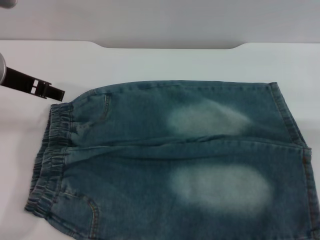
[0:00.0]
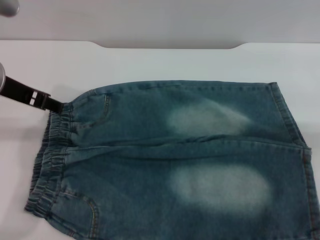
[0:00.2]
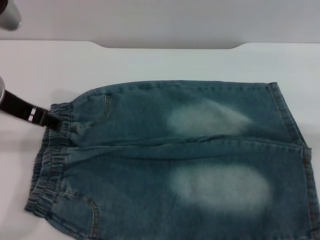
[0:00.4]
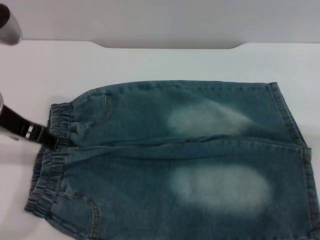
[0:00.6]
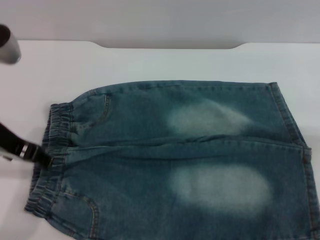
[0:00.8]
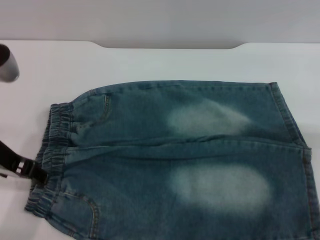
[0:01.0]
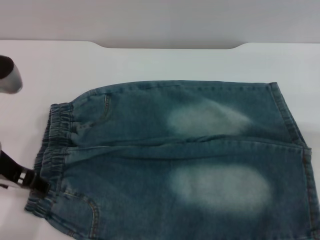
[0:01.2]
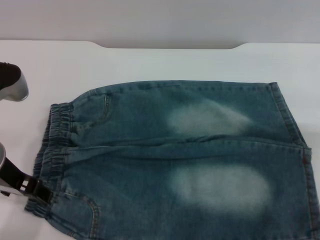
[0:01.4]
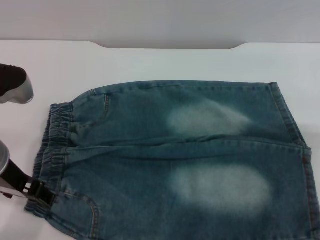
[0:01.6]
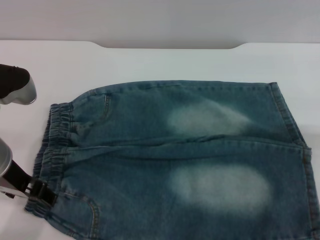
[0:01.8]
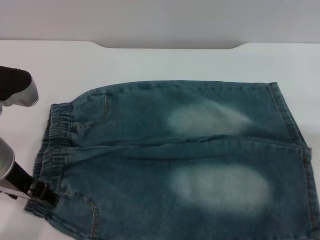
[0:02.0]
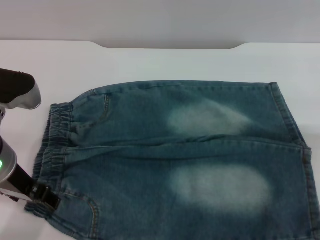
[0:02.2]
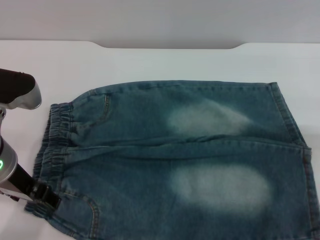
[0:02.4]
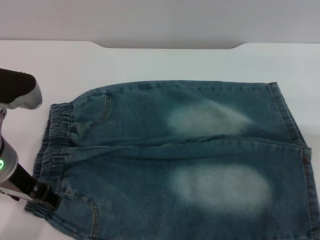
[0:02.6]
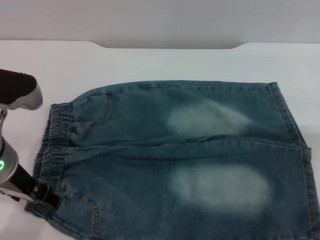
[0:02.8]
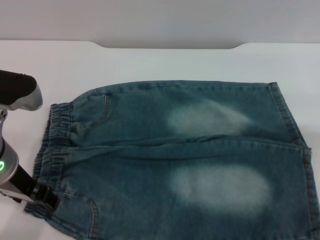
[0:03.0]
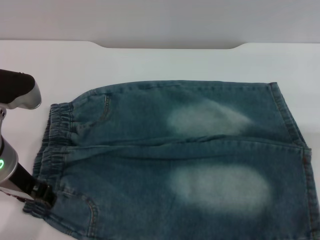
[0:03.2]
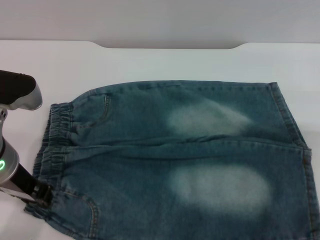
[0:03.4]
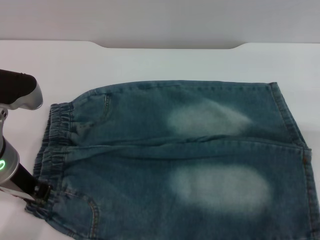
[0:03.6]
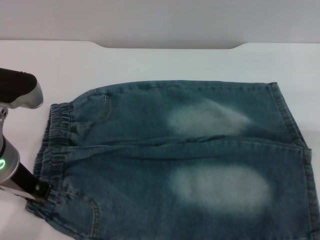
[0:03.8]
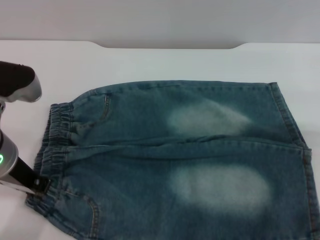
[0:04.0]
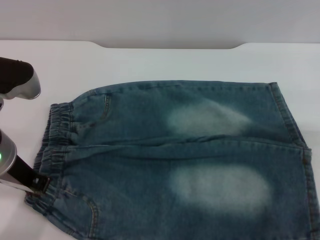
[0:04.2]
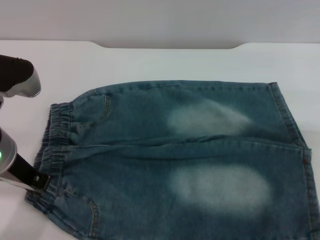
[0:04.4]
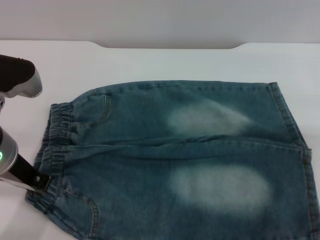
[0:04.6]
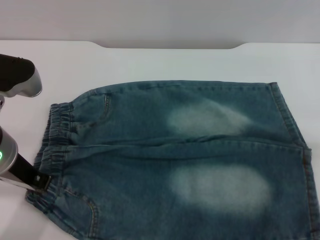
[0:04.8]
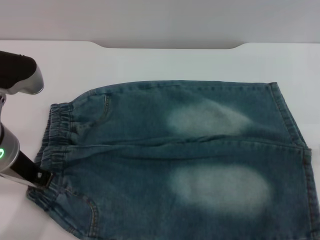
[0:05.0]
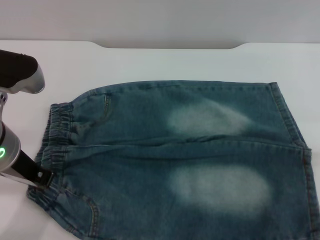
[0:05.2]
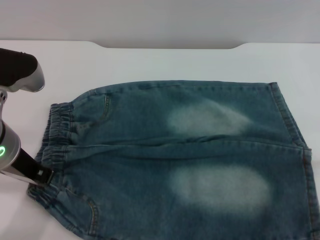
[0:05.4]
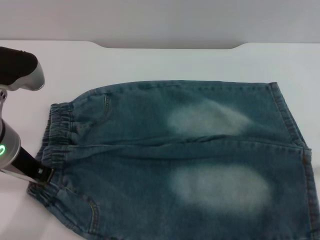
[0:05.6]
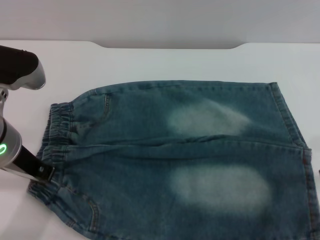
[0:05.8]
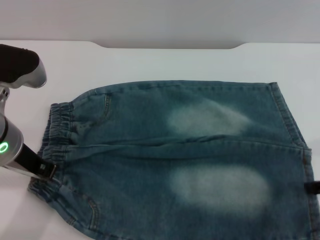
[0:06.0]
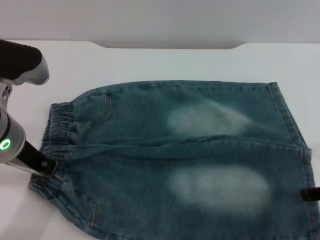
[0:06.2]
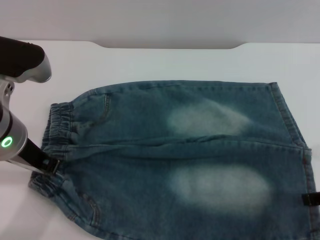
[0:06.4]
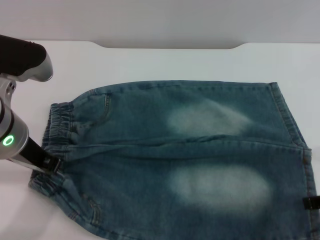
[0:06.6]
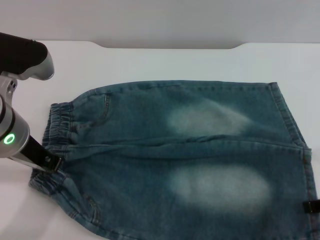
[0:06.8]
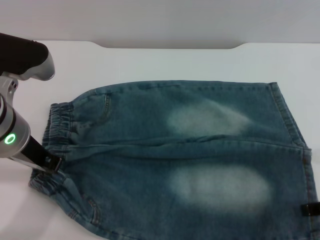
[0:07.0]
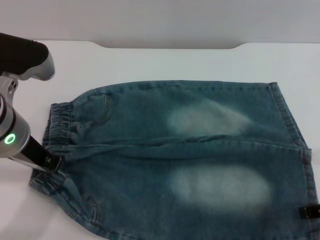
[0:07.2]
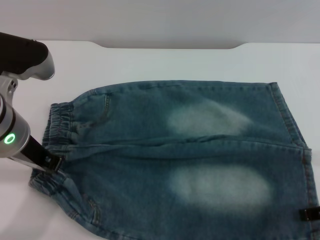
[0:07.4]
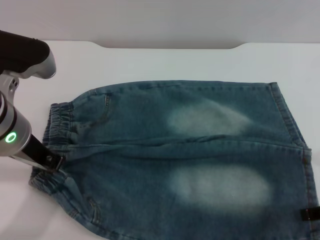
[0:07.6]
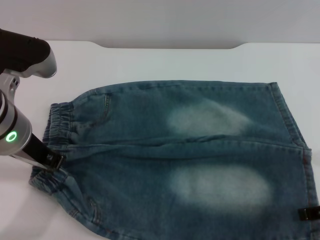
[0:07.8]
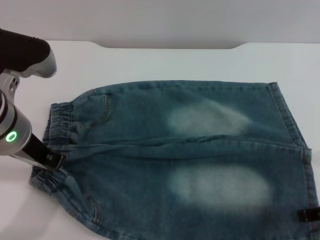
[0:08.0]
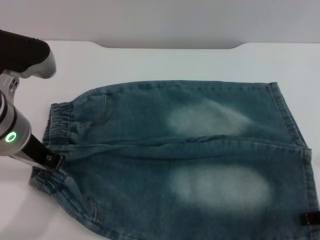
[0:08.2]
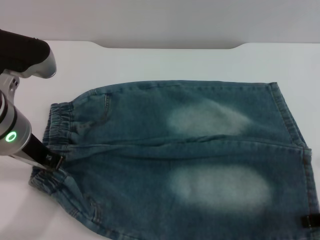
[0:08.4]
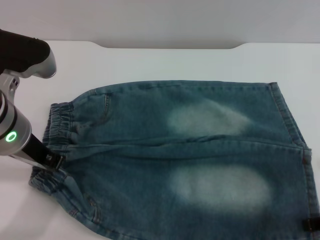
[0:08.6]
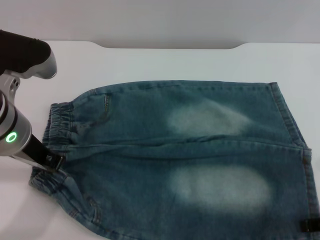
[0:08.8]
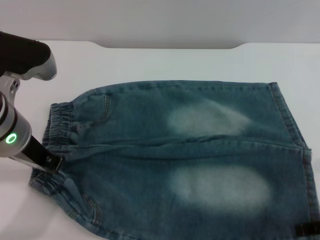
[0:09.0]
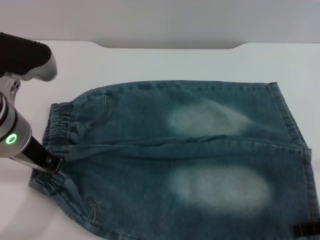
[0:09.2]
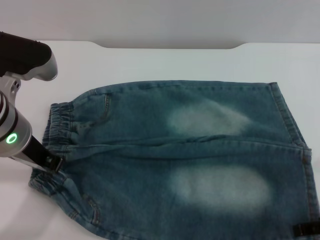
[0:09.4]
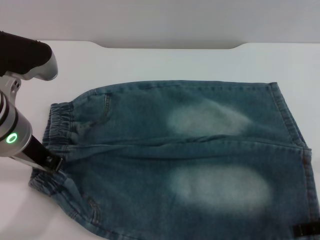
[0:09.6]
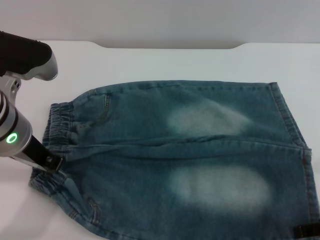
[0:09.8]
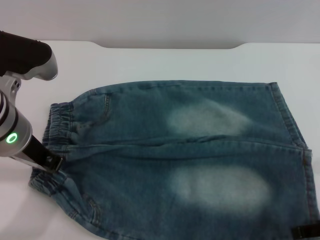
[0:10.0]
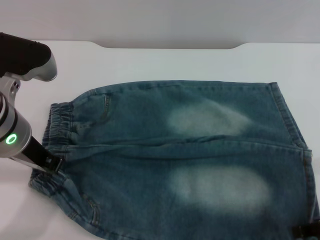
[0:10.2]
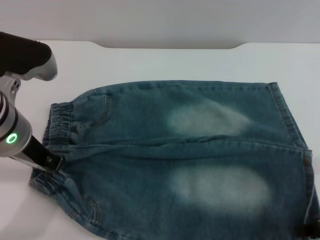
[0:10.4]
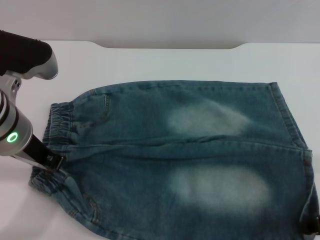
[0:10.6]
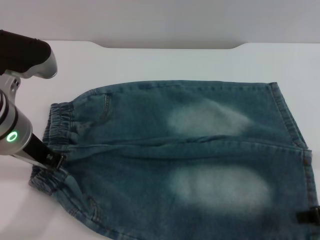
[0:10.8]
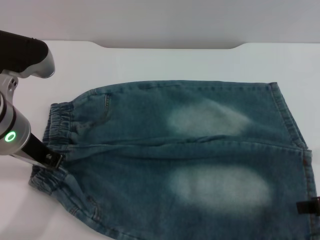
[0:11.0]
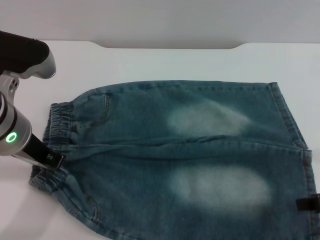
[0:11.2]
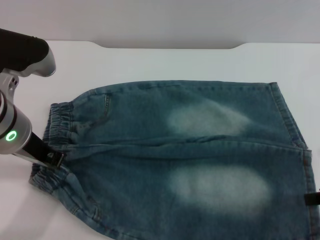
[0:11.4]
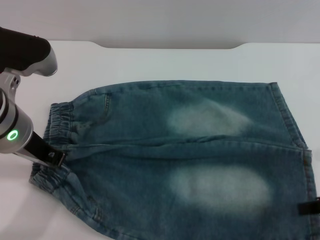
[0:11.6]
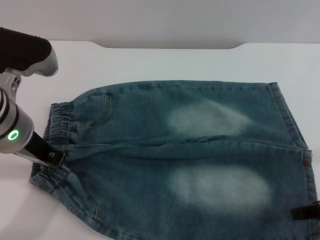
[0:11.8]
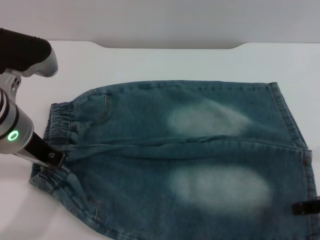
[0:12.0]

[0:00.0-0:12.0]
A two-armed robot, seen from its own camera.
0:00.0 to 0:01.6: The left gripper moves backward and downward, about 10 cm.
0:01.6 to 0:03.0: The grippers make only small movements.
0:03.0 to 0:04.4: The left gripper closes its fingers.
0:06.0 to 0:09.0: The grippers make only small movements.
0:10.4 to 0:12.0: There are only small adjustments of the grippers.

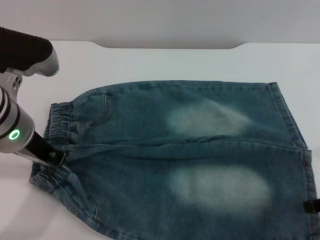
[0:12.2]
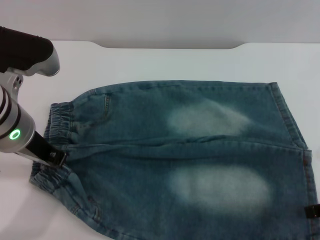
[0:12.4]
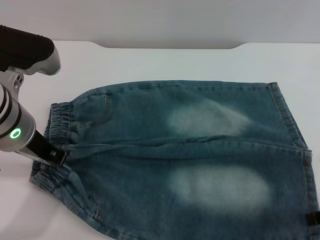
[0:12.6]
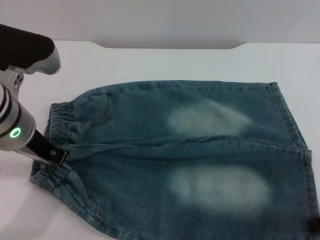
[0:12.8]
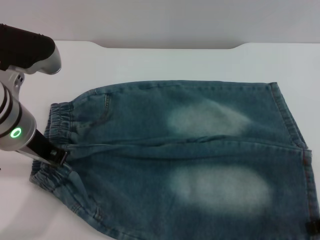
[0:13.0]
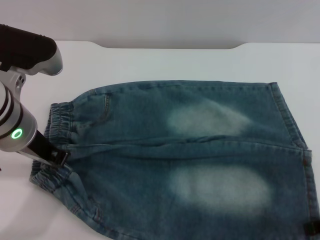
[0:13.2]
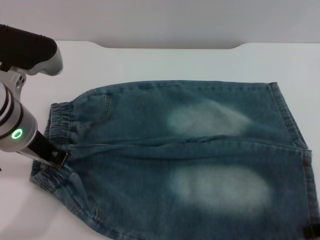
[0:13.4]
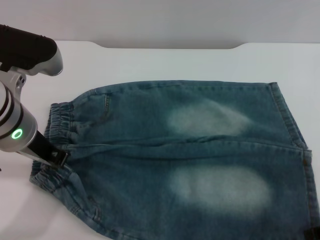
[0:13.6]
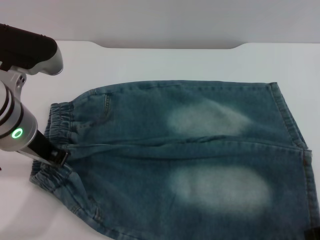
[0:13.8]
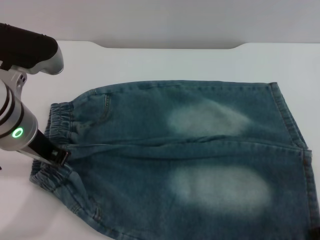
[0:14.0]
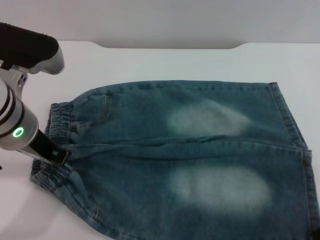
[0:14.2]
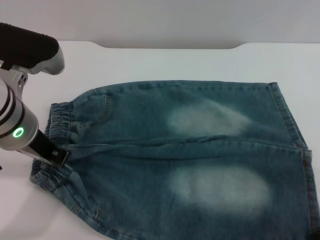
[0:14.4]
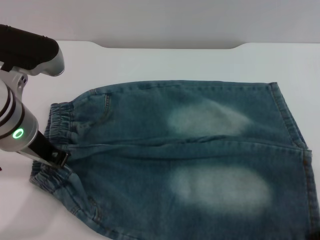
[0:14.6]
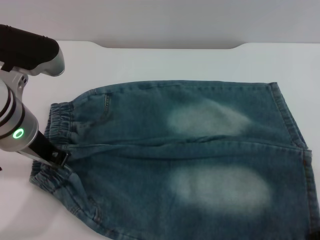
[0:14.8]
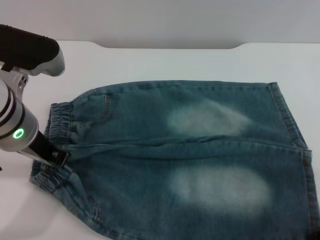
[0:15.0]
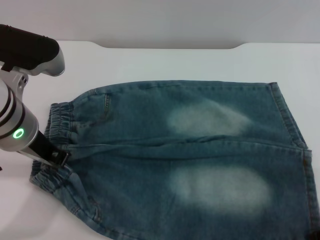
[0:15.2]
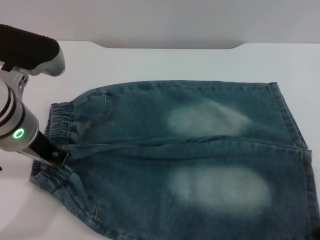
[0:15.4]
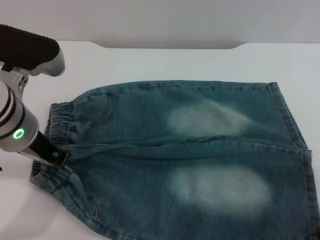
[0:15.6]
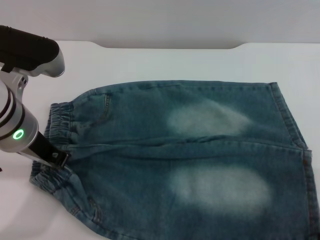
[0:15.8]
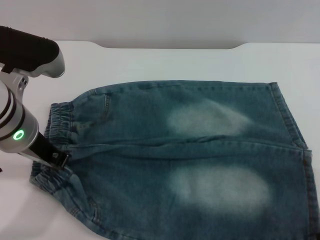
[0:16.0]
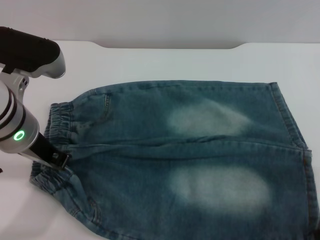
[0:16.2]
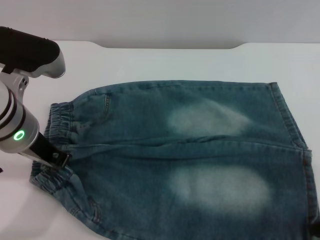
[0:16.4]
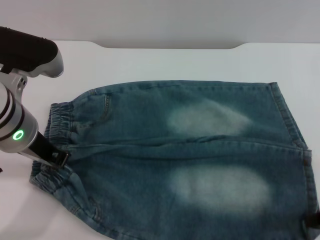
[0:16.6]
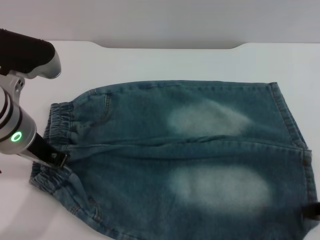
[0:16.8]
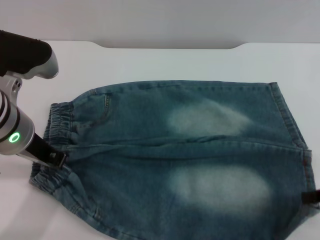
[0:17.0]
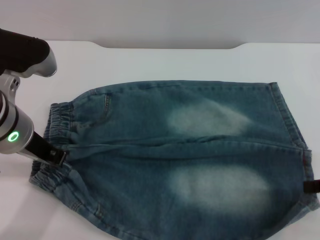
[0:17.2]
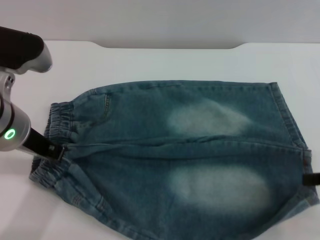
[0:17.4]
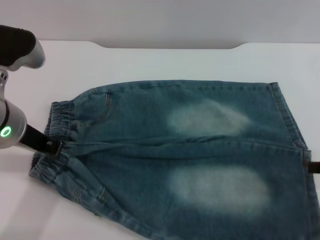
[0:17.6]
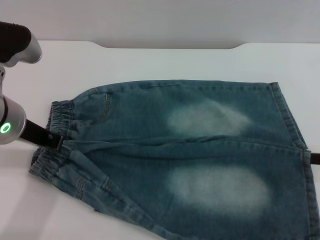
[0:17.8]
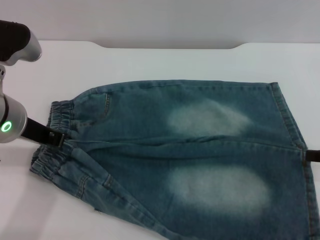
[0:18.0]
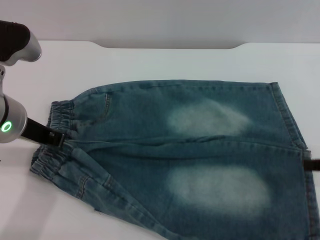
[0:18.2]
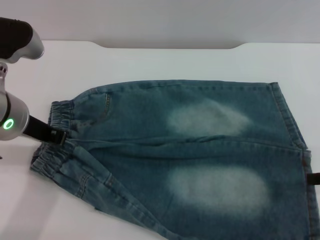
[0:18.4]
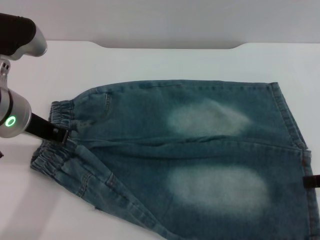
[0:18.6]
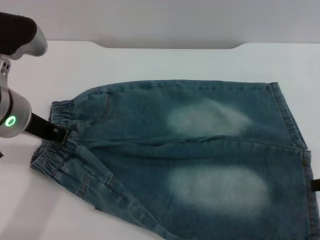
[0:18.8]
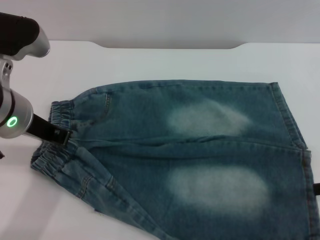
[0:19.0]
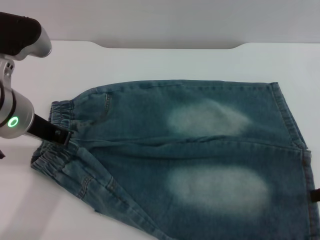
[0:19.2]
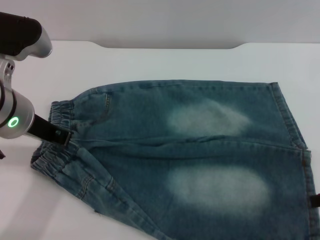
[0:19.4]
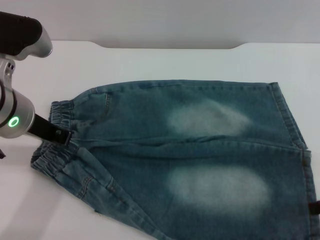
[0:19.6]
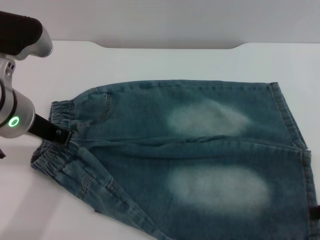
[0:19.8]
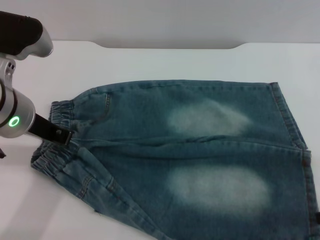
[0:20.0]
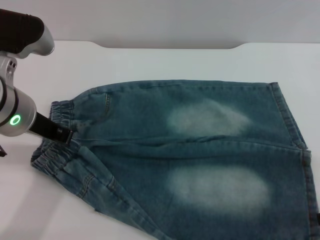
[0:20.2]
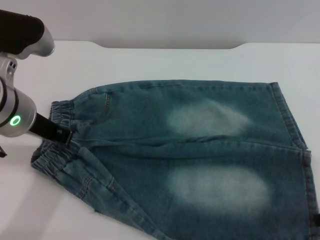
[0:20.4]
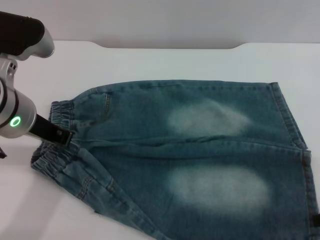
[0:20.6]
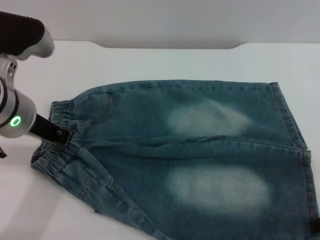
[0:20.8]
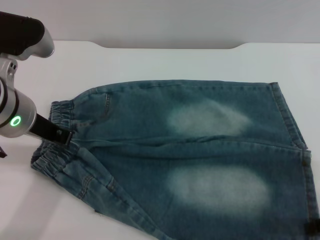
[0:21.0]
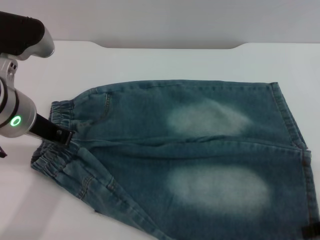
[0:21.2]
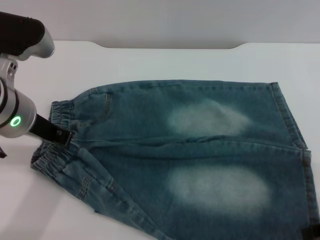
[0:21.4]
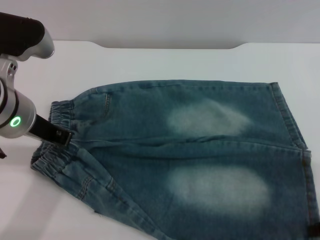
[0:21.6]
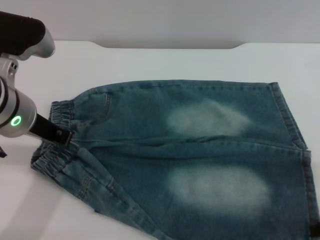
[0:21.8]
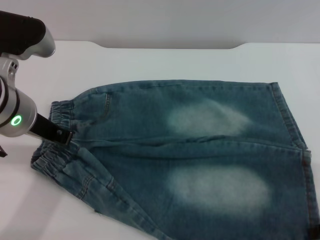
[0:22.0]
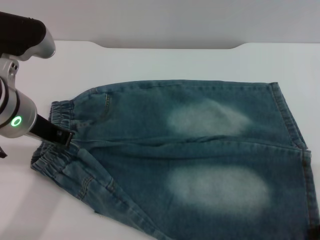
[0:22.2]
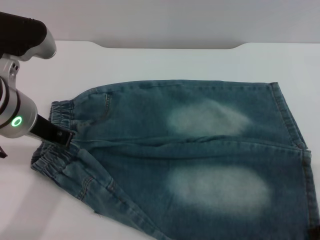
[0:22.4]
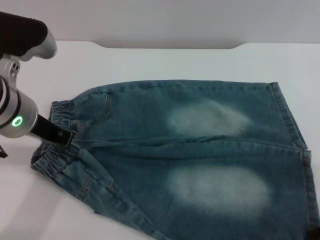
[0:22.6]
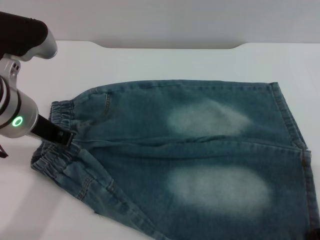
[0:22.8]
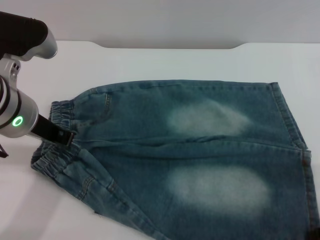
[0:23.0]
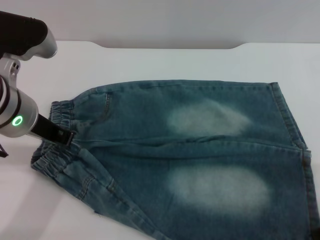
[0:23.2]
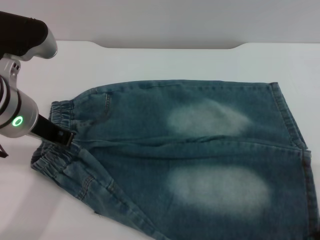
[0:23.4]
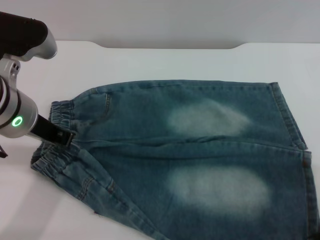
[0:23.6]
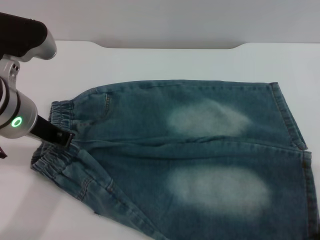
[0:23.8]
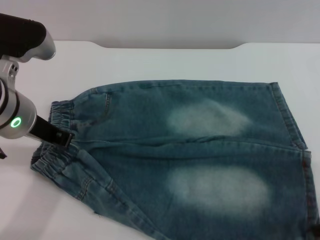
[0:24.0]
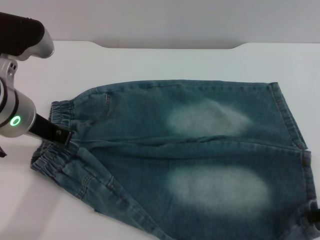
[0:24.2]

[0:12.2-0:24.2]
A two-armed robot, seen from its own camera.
0:12.2 to 0:13.8: The grippers move only a little.
0:13.8 to 0:15.2: Neither gripper changes place.
0:18.2 to 0:19.8: The right gripper opens.
0:19.8 to 0:21.2: The grippers stay close to where they were, moving slightly.
0:21.2 to 0:22.6: Both grippers stay put.
0:22.6 to 0:24.2: The right gripper closes up.
